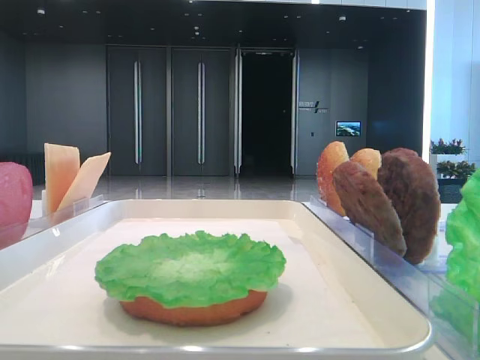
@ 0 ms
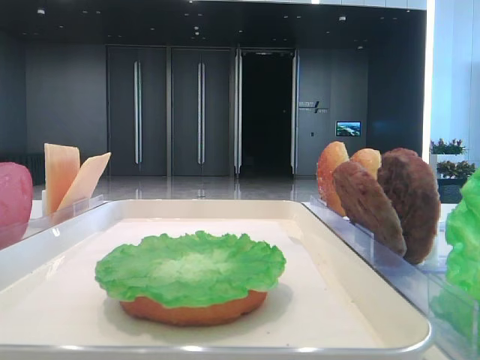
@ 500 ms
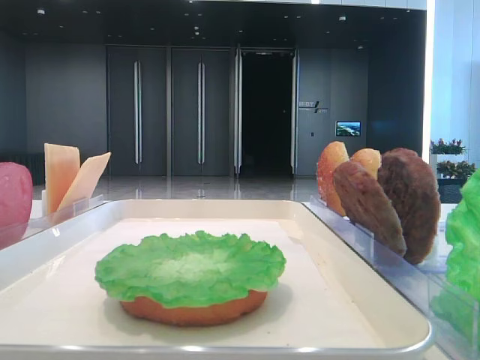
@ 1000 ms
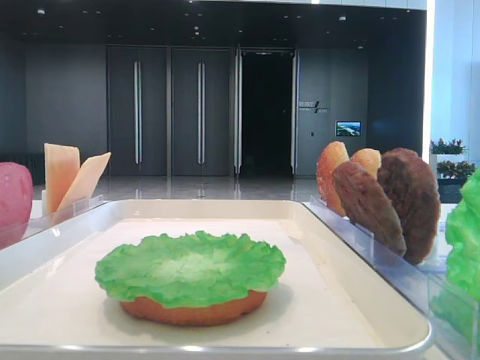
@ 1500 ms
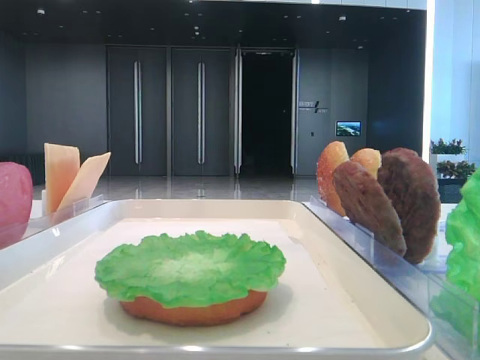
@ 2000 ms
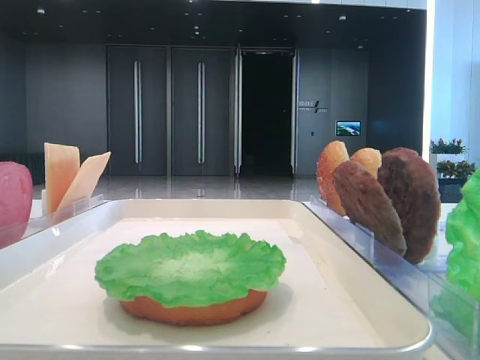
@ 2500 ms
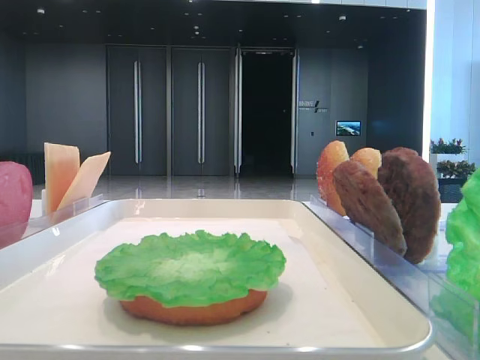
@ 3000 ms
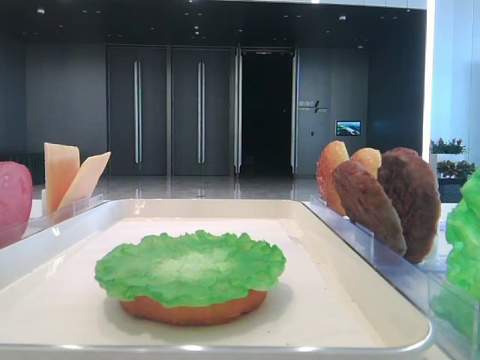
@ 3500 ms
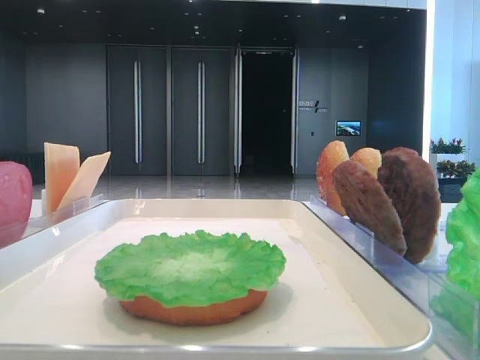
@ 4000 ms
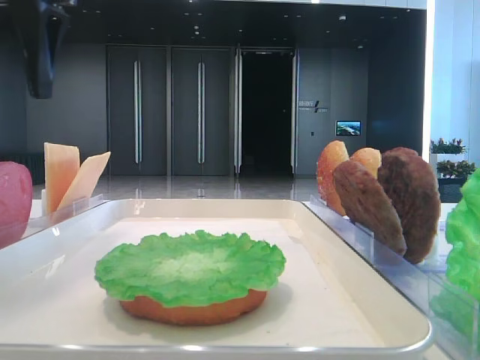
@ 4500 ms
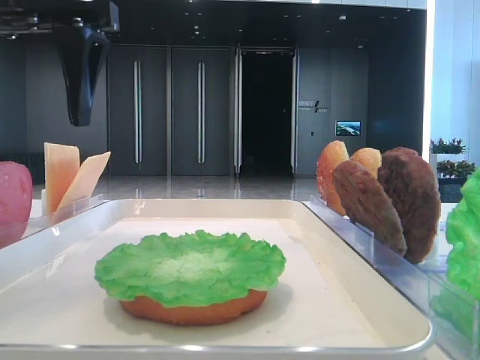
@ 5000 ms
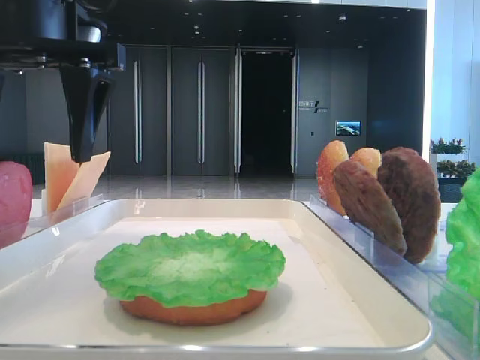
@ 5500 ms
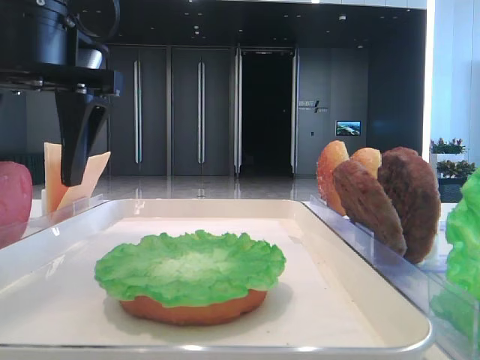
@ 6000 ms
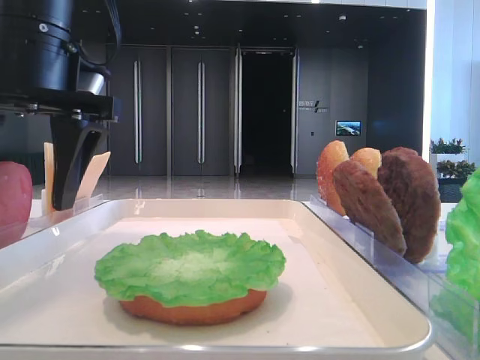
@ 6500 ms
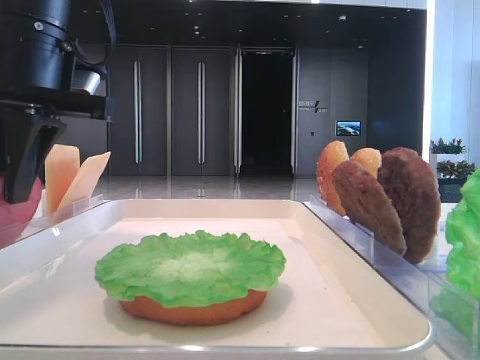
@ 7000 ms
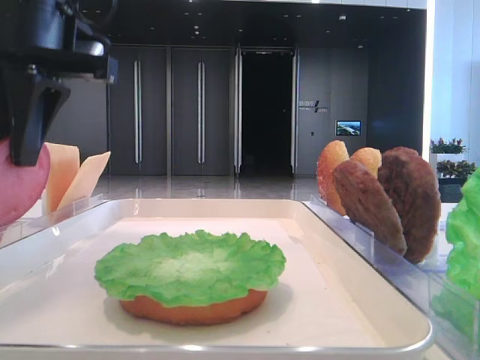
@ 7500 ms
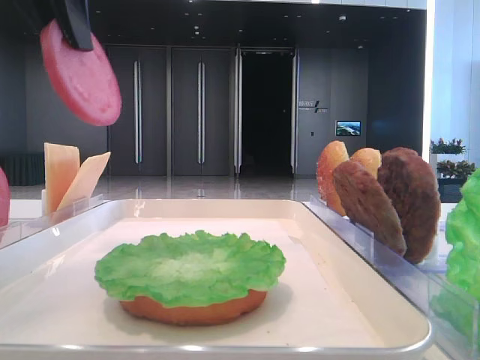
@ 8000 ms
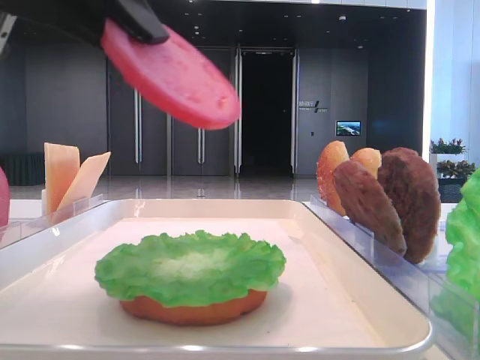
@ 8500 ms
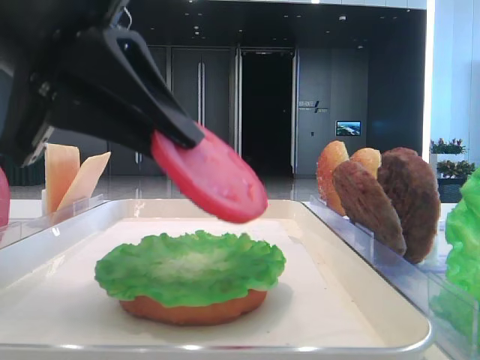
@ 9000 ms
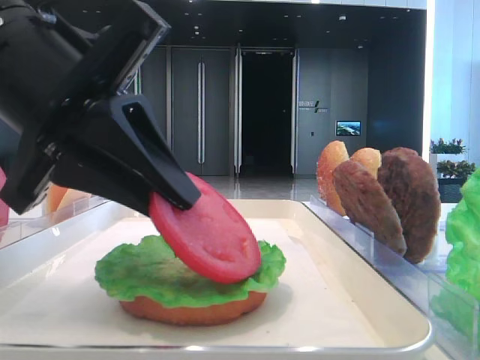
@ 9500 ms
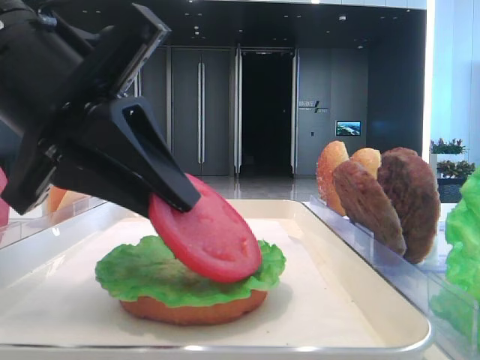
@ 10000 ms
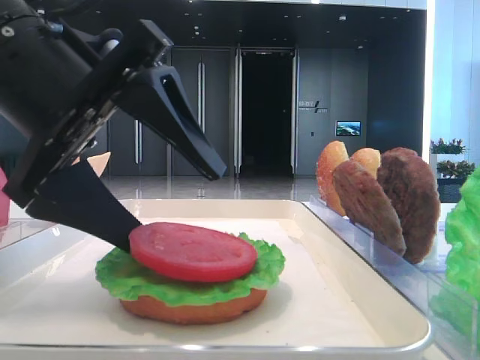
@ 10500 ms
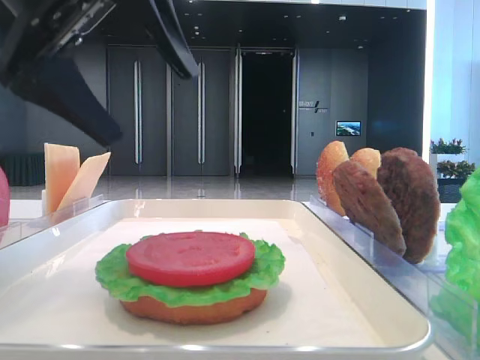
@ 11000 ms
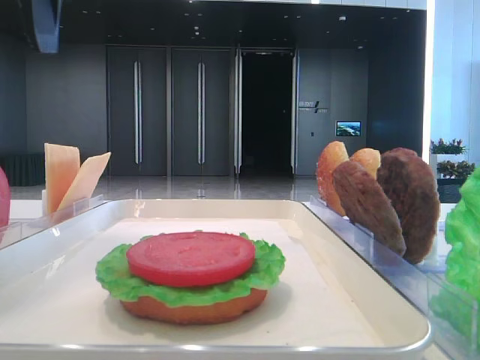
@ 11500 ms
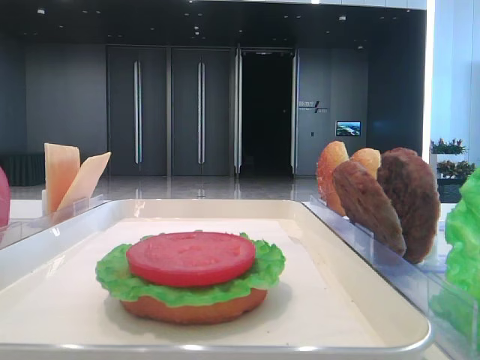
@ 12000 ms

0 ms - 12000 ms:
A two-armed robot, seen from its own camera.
Step, 0 ms - 7000 ms: Pick up the tomato slice with the left hand.
Step, 7500 ms - 10500 ms: Place the tomato slice on the lettuce leaf with the left hand.
4000 ms - 6000 ms: The left gripper is displaced to the right and downward by roughly 20 cm.
6000 ms - 8000 ms: The left gripper travels upward by approximately 10 cm, and closes its fingers.
8000 ms - 10000 ms: The left gripper travels downward by roughly 15 cm.
10000 ms - 12000 ms: The left gripper travels to the left, upward and forward by about 25 cm, and opens.

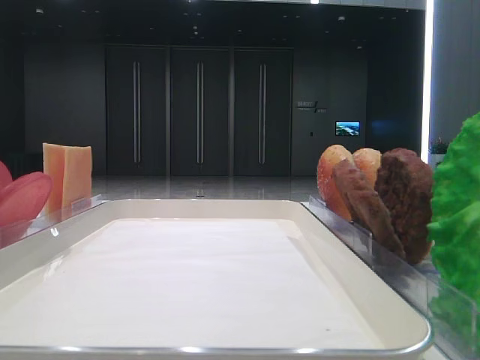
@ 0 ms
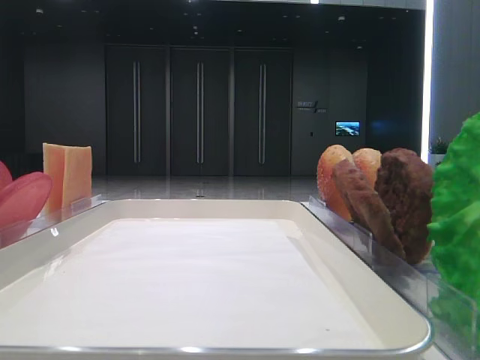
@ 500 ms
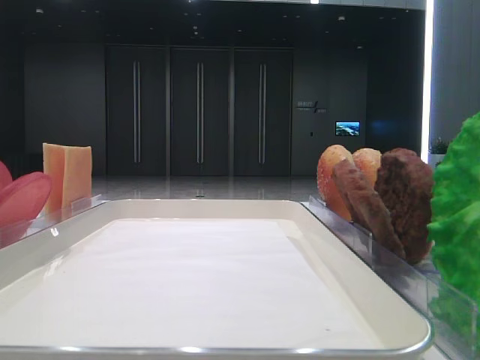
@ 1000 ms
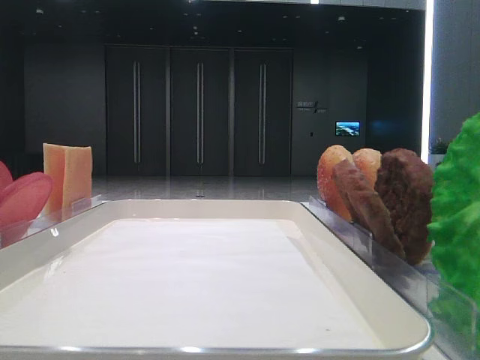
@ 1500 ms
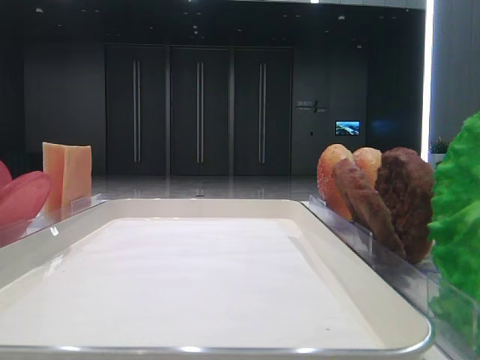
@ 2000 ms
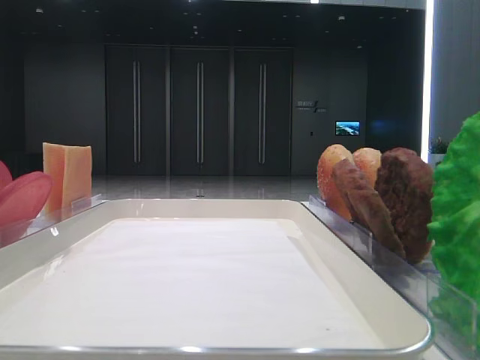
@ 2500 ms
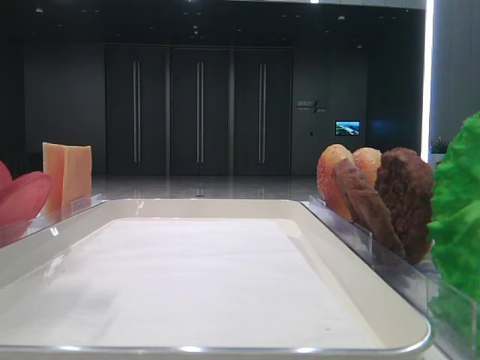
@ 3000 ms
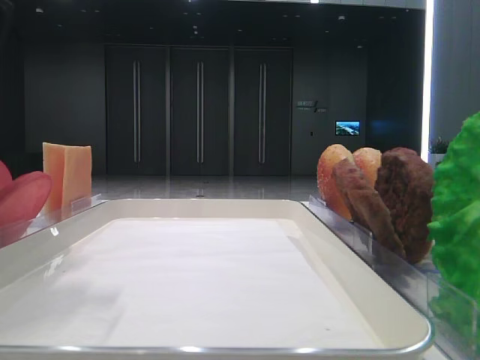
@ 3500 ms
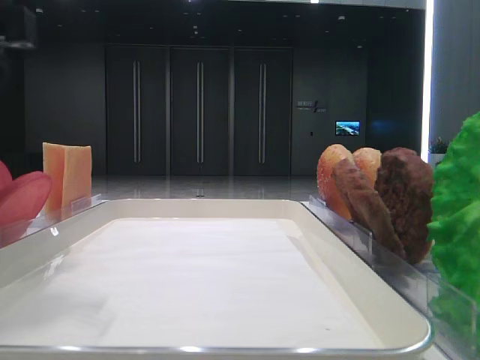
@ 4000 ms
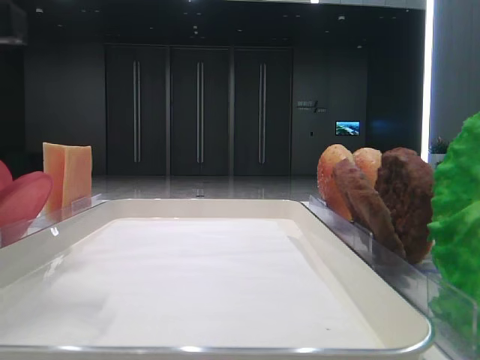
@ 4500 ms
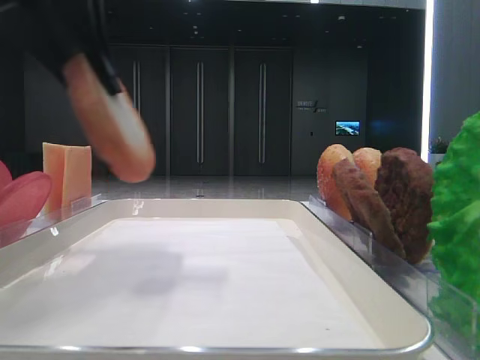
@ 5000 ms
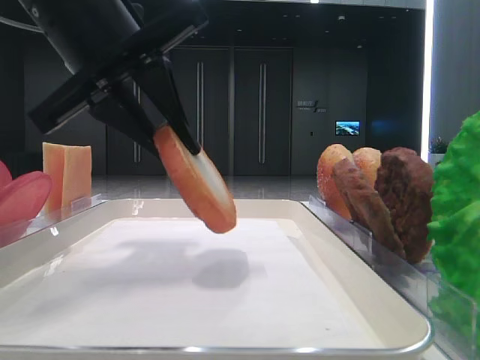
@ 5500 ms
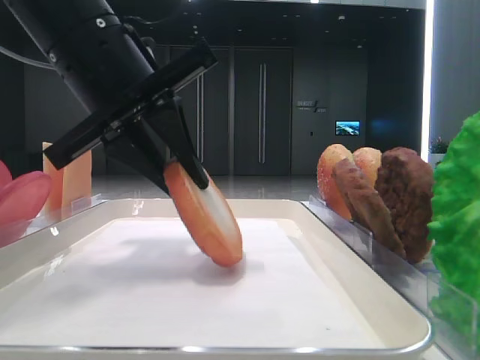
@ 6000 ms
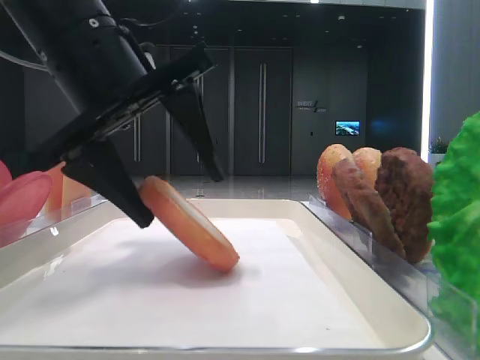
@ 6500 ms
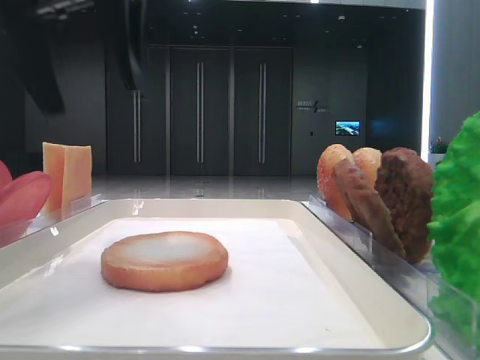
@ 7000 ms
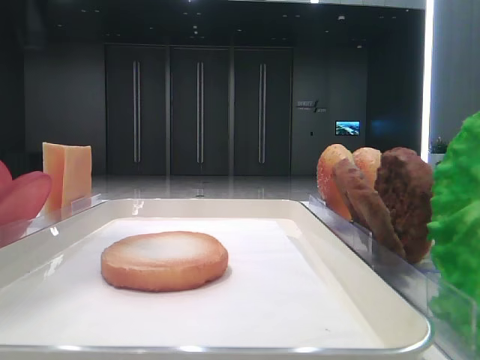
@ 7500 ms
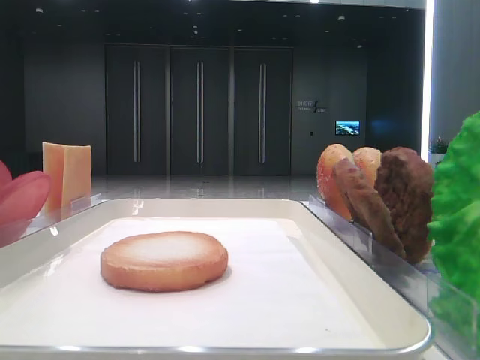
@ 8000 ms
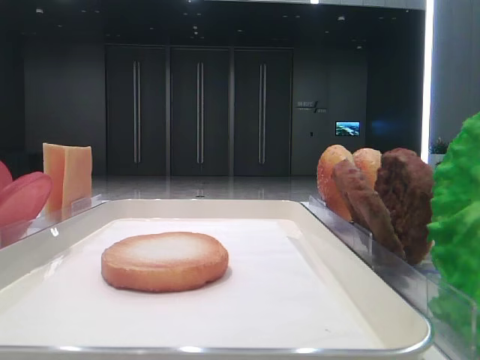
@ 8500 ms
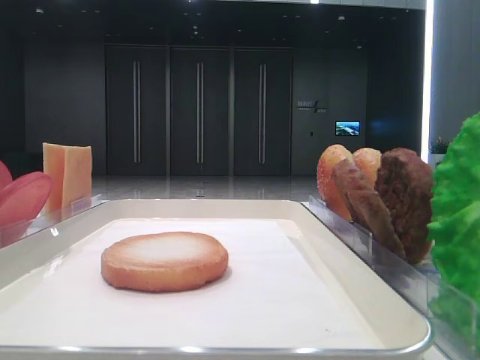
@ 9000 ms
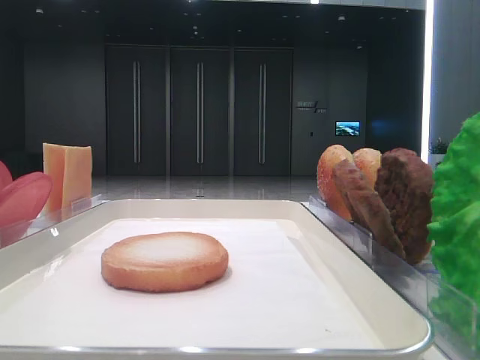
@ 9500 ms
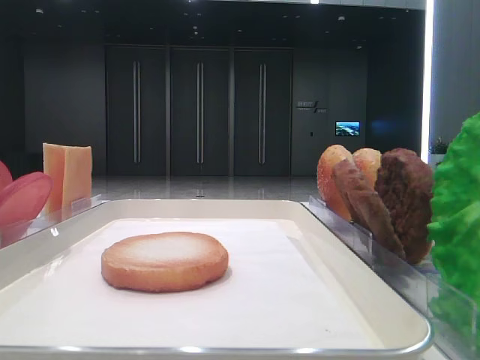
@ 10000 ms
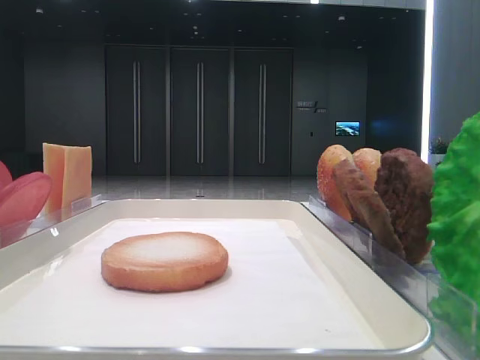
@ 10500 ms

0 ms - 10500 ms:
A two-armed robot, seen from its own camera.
Step, 0 ms - 4000 ms: Pick up the bottom bread with the left hand.
Step, 4500 ms - 6500 ms: Place the bread on the tray with the left hand.
2000 ms - 4000 ms: The left gripper moves to the right and downward, some 15 cm.
4000 ms - 6500 ms: The left gripper moves to the right and forward, roughly 10 cm, and closes, then opens again.
6500 ms - 8500 ms: The left gripper goes approximately 30 cm to the left, backward and upward.

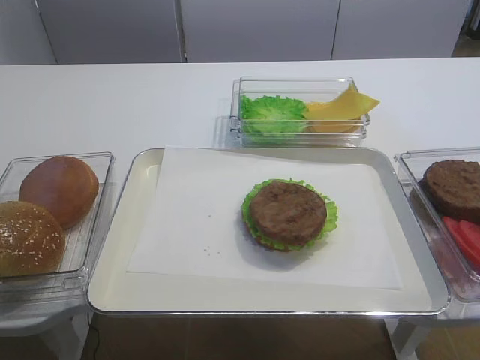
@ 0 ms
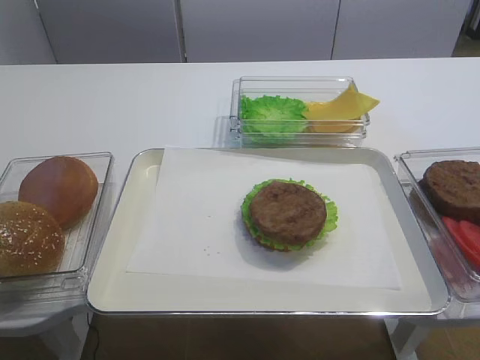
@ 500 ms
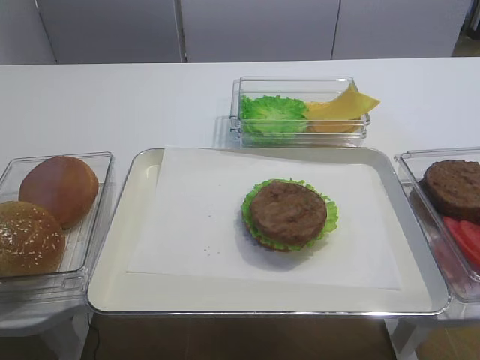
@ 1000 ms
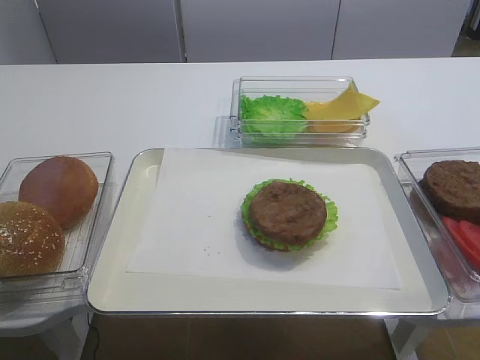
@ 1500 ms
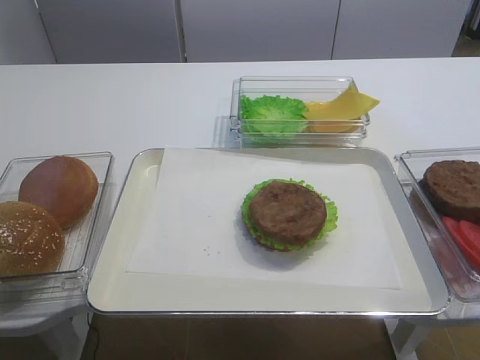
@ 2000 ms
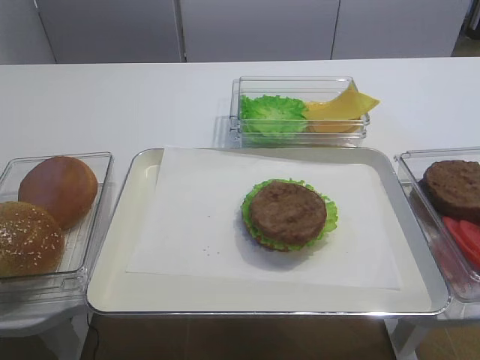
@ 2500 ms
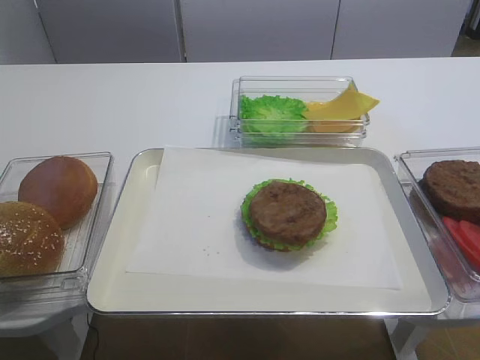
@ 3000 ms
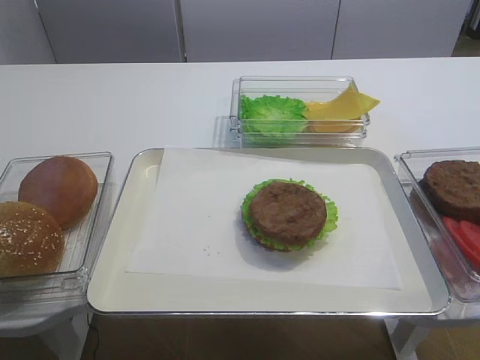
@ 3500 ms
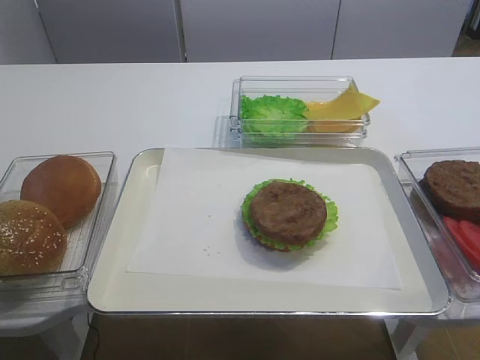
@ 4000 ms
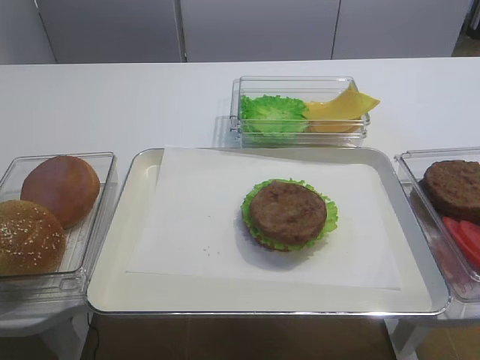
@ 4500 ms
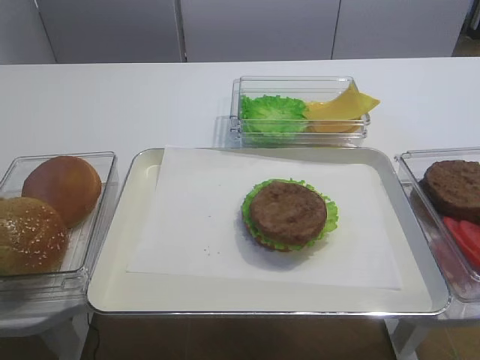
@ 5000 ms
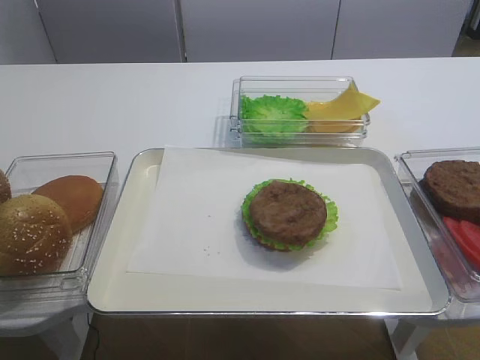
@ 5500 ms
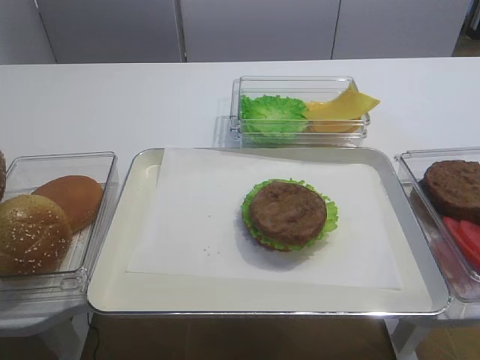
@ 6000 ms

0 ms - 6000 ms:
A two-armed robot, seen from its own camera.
4000 ms - 6000 ms: The left gripper goes about 5 cm upward, and closes.
